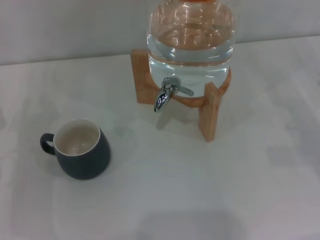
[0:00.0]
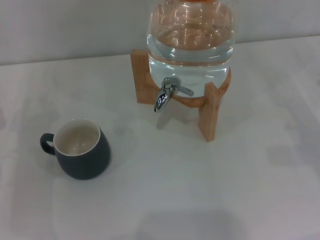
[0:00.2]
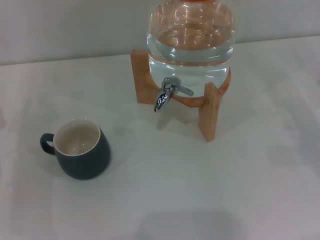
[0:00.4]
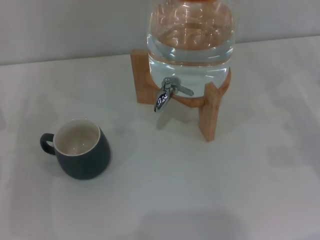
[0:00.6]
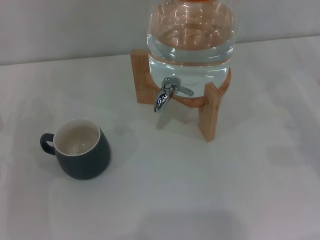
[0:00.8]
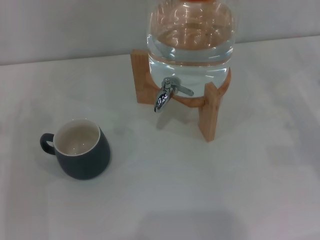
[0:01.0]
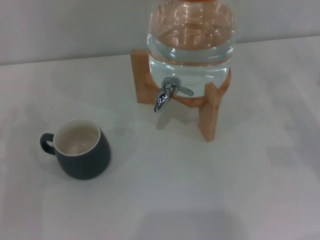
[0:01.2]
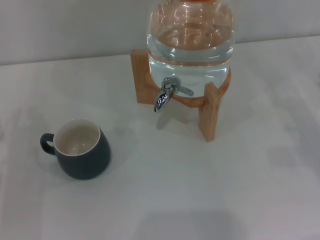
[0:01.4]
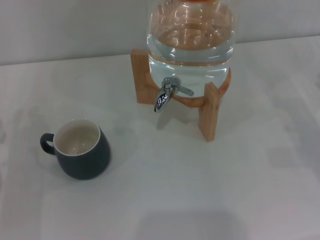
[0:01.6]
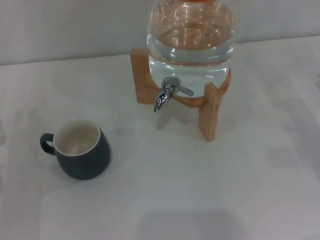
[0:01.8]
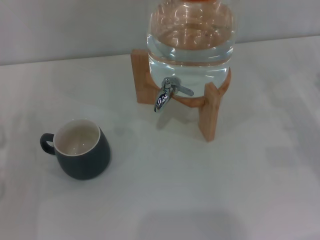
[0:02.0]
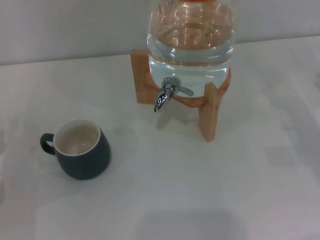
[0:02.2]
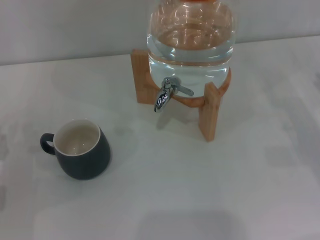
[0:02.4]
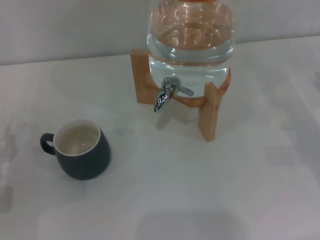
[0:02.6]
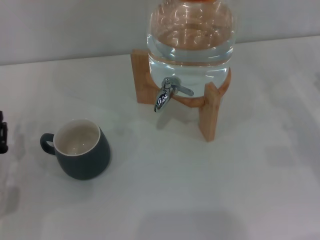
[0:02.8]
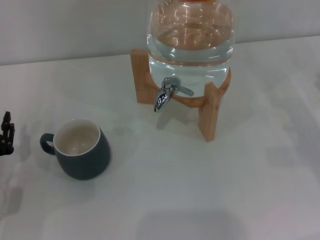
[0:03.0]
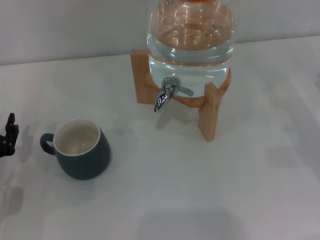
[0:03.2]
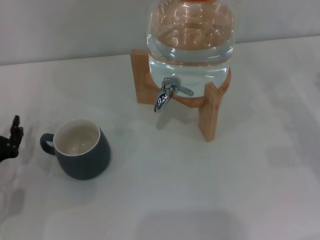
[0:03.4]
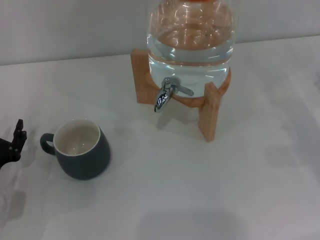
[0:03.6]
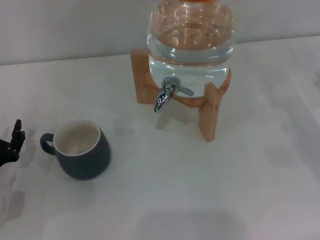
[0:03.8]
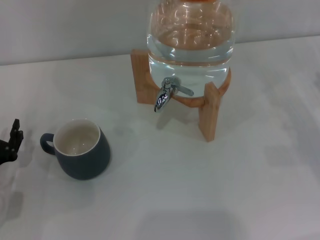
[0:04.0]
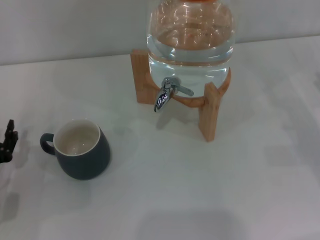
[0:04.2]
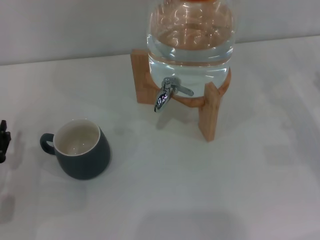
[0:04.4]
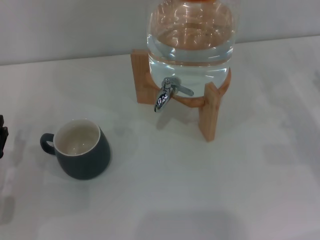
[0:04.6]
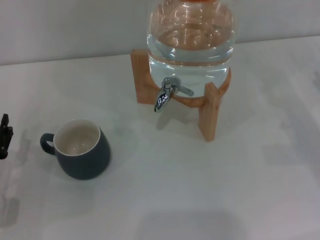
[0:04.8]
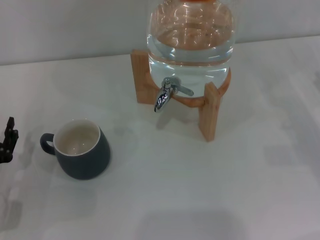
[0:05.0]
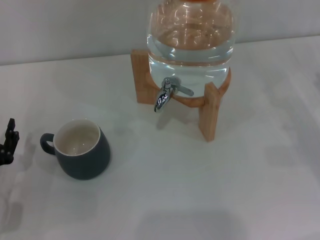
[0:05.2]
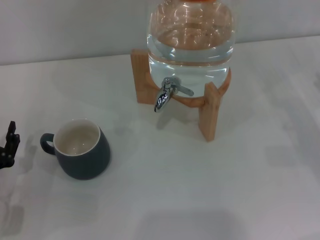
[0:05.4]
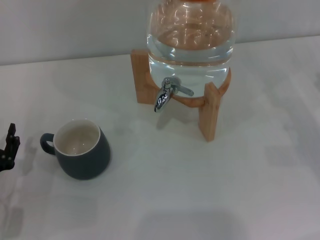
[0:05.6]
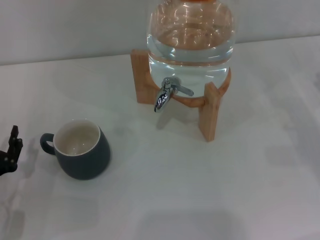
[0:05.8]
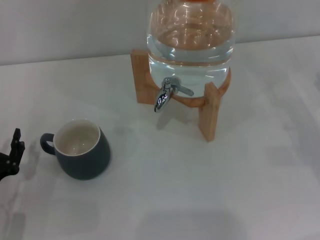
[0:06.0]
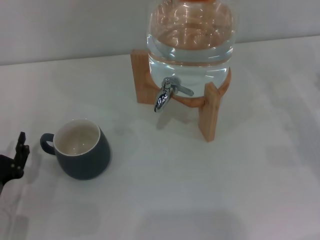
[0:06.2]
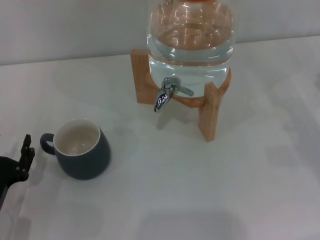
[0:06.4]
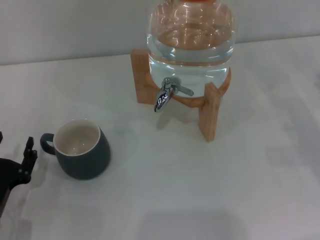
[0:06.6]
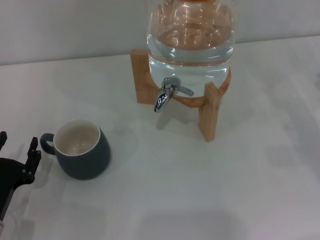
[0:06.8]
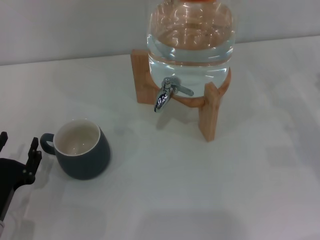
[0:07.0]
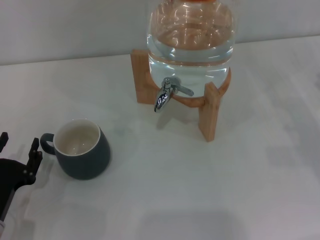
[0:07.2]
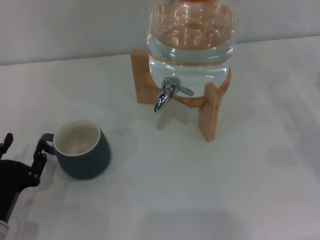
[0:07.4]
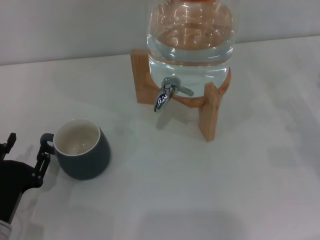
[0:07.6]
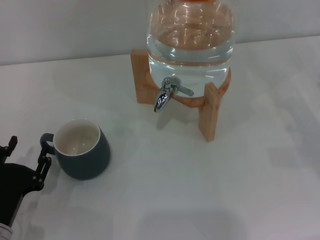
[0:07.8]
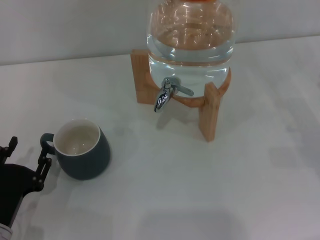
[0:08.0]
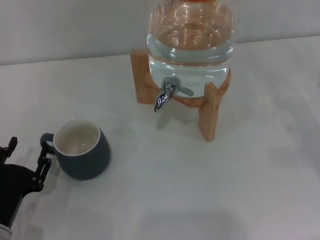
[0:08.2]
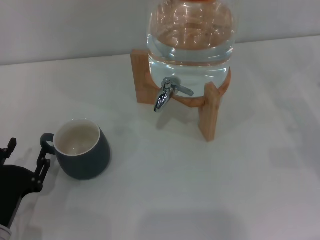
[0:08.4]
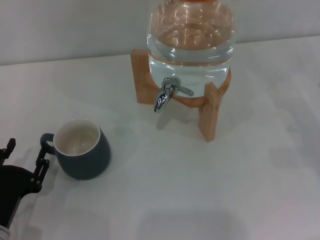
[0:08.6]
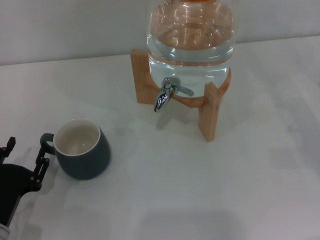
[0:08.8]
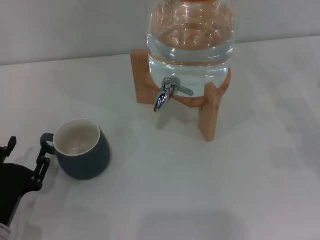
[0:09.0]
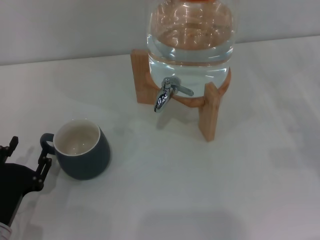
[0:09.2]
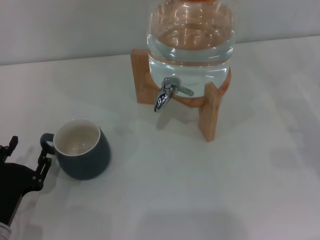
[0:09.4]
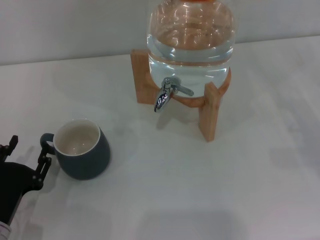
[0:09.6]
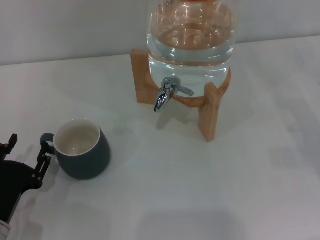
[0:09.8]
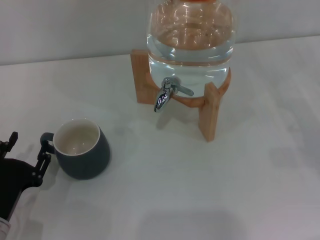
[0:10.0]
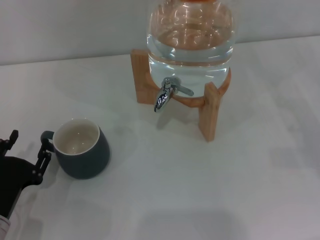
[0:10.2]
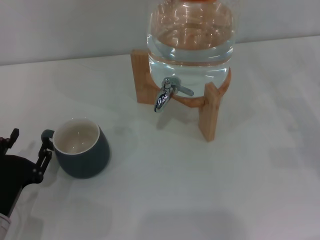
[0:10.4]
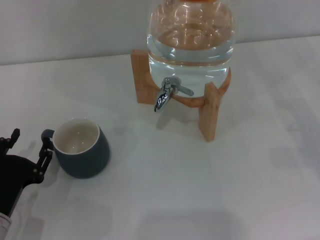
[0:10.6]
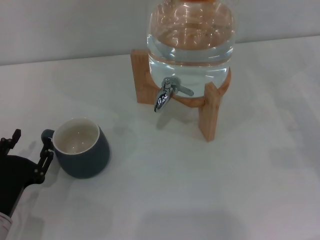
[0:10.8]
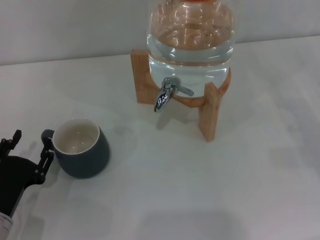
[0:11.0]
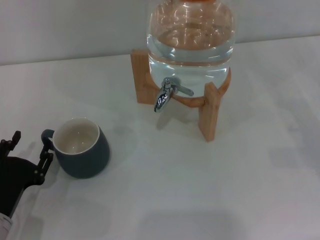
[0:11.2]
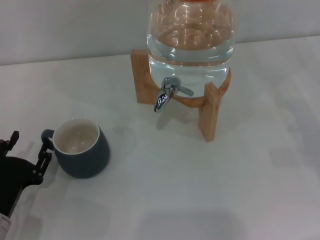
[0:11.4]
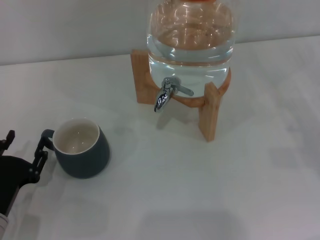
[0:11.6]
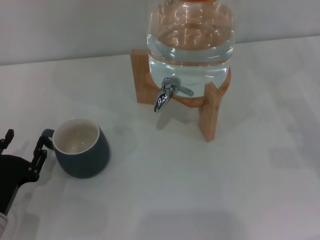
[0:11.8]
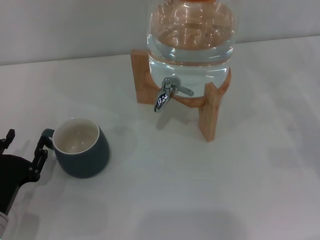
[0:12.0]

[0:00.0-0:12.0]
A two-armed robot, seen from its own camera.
Task of the whole recording: the left gripper pick up the black cup and place it horizontally under the faucet, the right gripper turn on the faucet to fill the cup, and then turn off the faucet.
0:01.6 to 0:03.0: The grippers move only a little.
0:04.4 to 0:06.0: The grippers move only a little.
0:06.0 to 0:07.6: The grippers make only small movements.
0:07.6 to 0:10.4: Both grippers stay about where they are.
0:10.4 to 0:12.0: Neither gripper changes place.

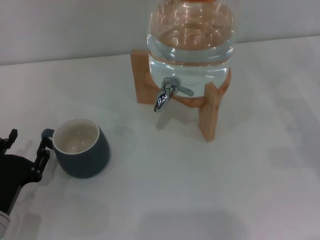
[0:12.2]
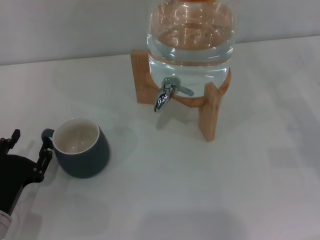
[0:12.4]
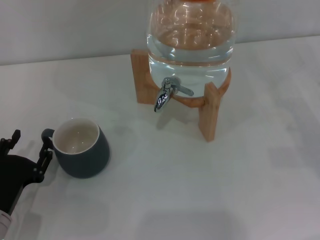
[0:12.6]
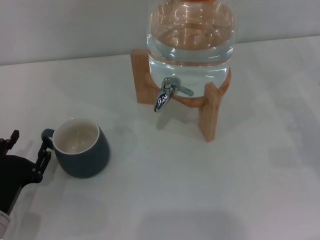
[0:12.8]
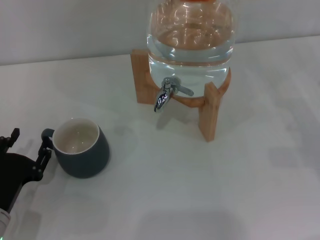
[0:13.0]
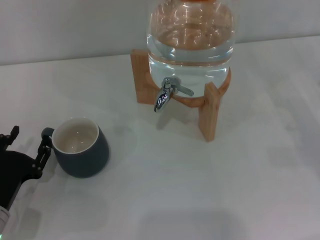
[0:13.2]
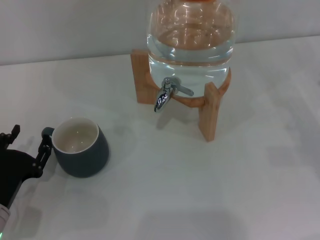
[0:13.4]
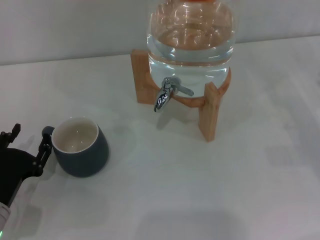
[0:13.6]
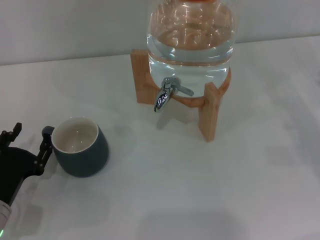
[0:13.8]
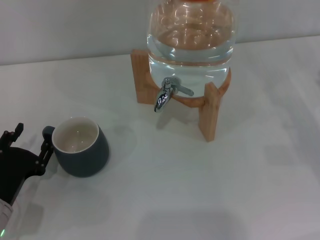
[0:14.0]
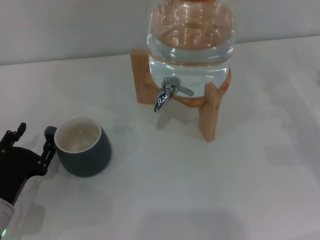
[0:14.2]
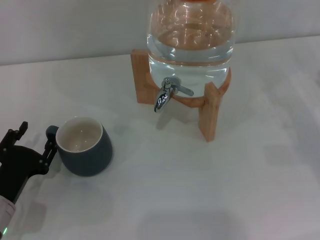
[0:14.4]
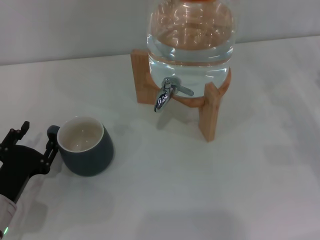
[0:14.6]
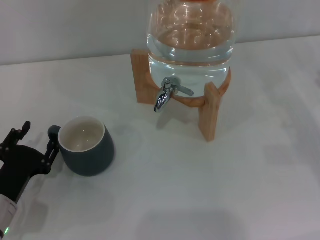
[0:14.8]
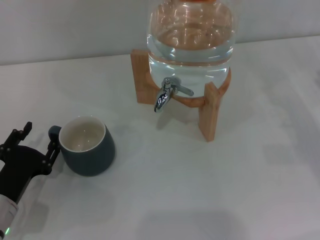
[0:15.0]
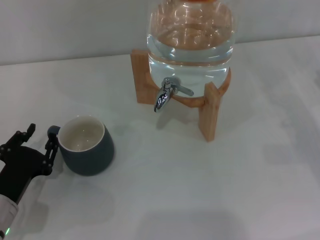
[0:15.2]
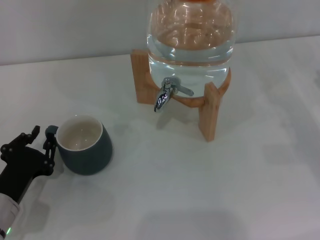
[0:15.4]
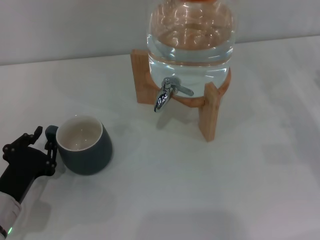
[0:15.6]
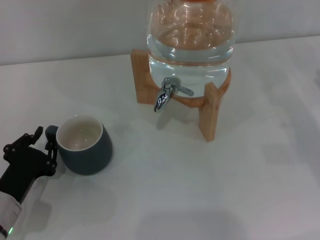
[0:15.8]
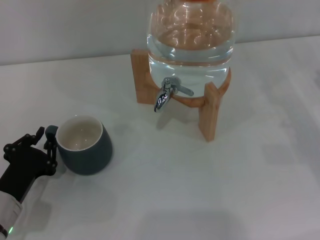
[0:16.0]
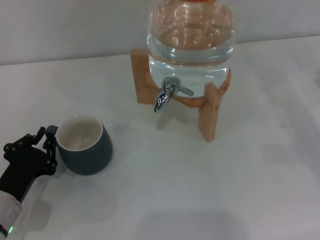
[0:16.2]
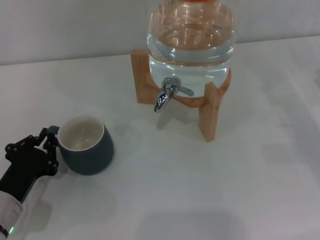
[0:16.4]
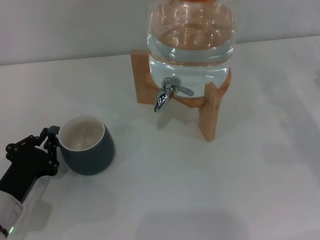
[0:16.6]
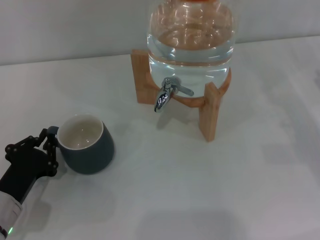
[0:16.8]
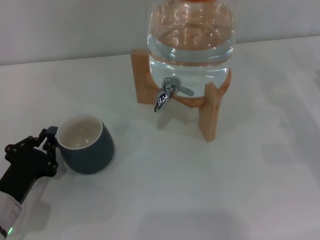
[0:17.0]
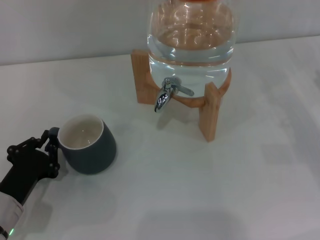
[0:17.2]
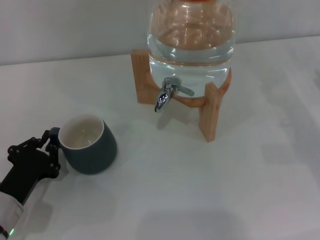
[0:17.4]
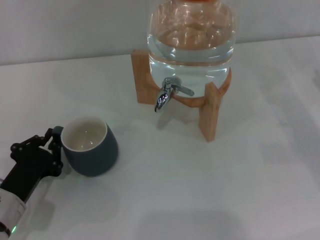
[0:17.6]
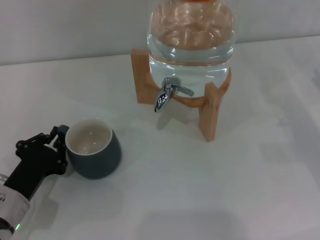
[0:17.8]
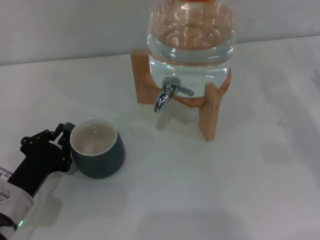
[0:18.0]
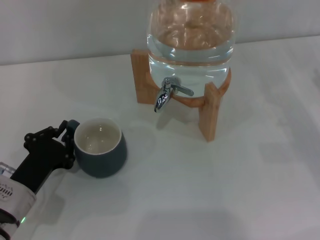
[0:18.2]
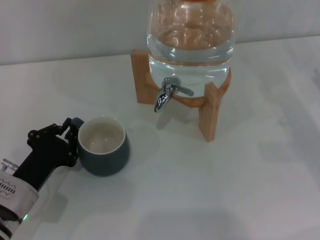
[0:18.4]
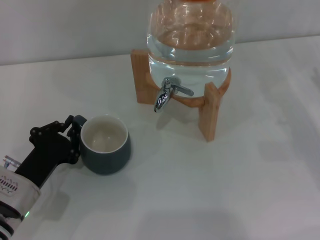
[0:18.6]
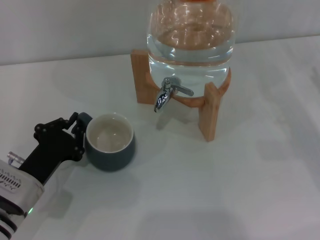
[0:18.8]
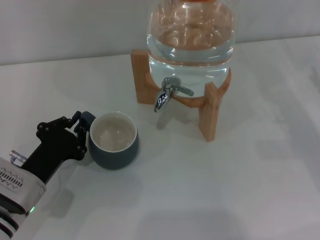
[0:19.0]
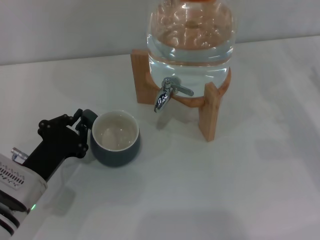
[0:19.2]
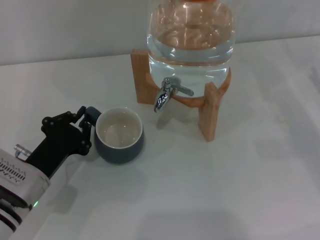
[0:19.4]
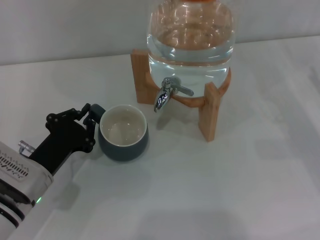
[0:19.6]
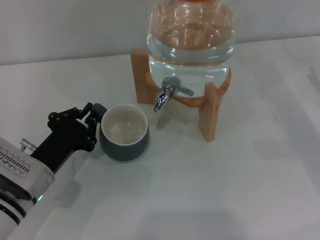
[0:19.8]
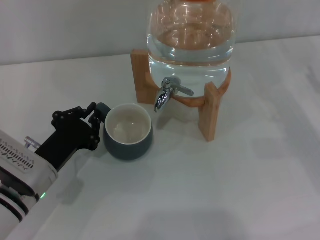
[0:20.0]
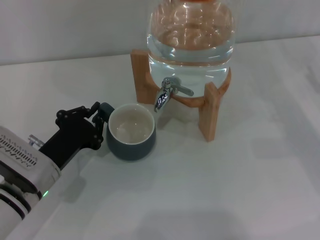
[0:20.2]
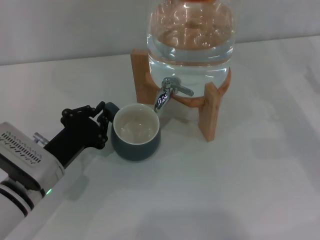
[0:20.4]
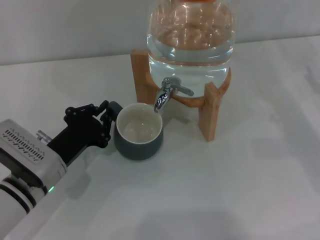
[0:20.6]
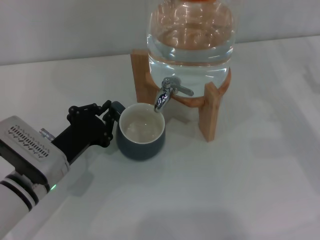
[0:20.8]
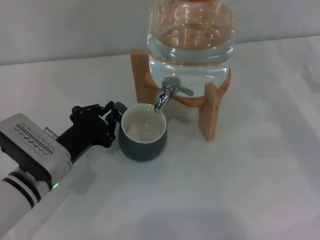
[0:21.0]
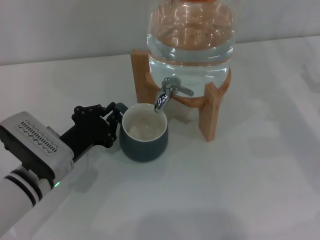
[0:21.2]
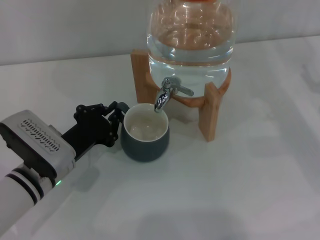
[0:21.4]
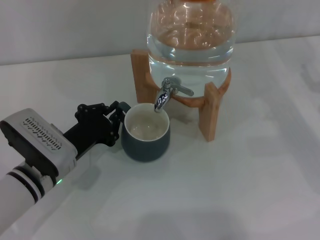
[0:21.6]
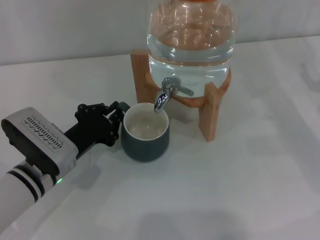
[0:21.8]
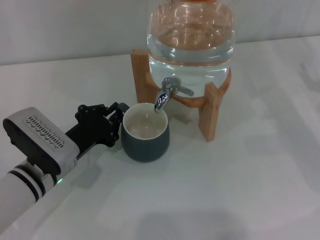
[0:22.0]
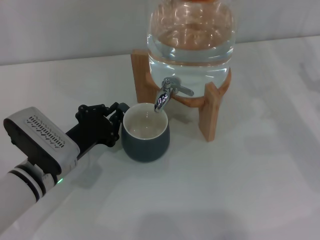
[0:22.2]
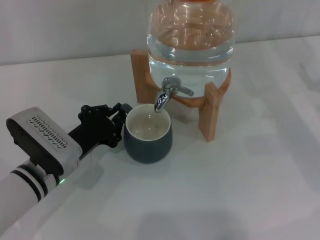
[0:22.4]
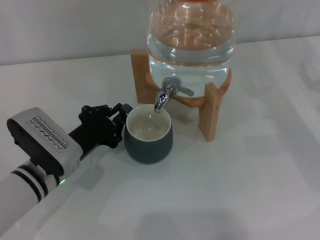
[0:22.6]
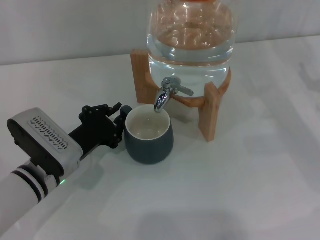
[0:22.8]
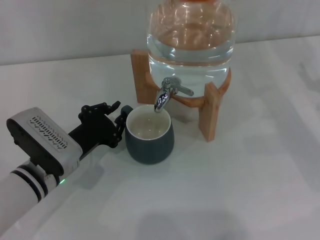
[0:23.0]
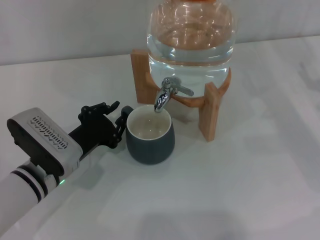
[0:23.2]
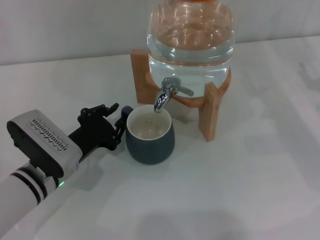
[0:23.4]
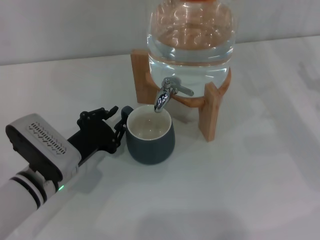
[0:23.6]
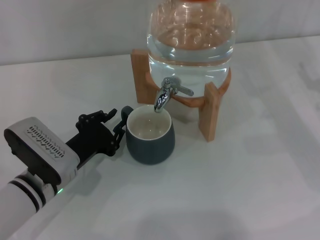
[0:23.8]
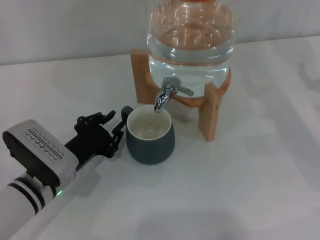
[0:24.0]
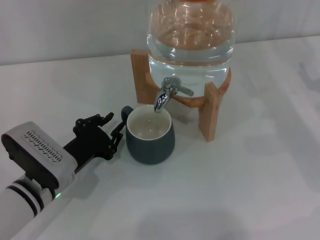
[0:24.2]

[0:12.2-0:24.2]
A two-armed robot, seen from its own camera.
Task of the whole recording: the left gripper pick up the black cup and place it horizontally under the faucet, the right gripper turn on the faucet to fill the cup, and then turn off the faucet.
0:12.2 to 0:13.8: The grippers move only a little.
0:13.8 to 0:15.2: Neither gripper changes place.
0:15.2 to 0:16.6: The left gripper closes.
0:16.6 to 0:18.2: The grippers move only a little.
0:18.2 to 0:19.8: The grippers move only a little.
0:19.8 to 0:21.2: The grippers move only a little.
0:21.2 to 0:22.6: Neither gripper changes place.
0:22.6 to 0:24.2: There are only small adjustments of the grippers.
